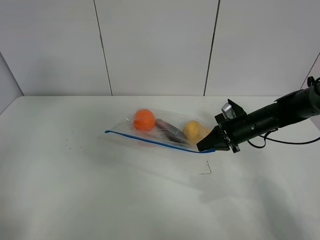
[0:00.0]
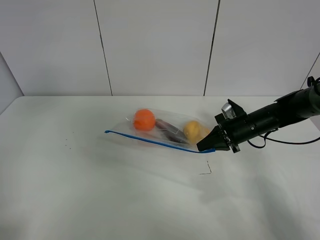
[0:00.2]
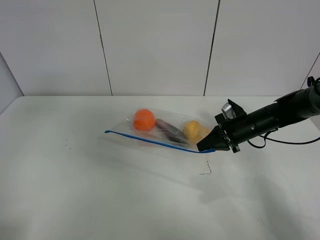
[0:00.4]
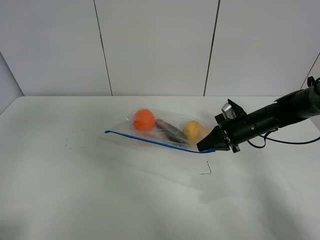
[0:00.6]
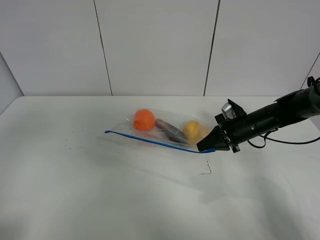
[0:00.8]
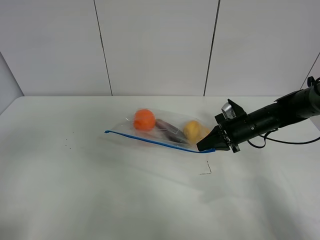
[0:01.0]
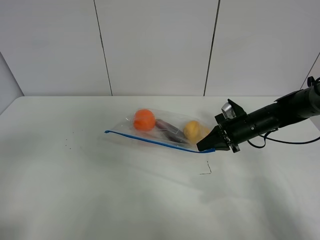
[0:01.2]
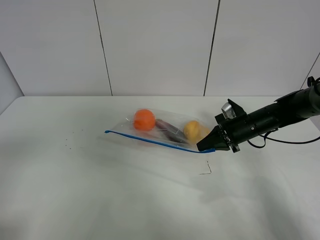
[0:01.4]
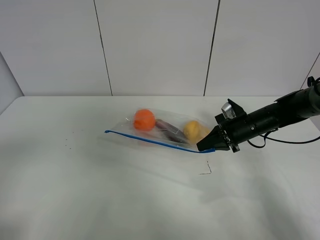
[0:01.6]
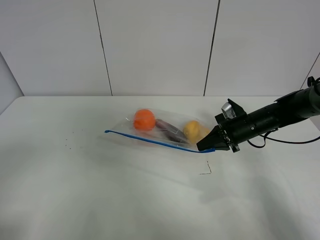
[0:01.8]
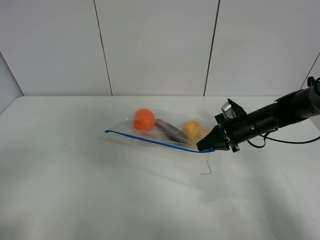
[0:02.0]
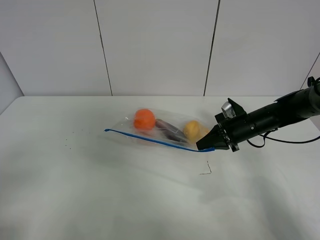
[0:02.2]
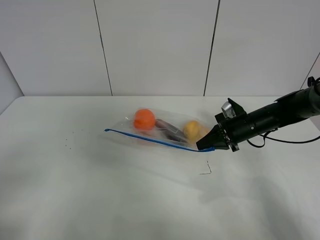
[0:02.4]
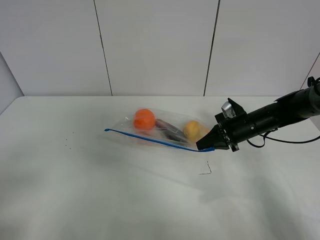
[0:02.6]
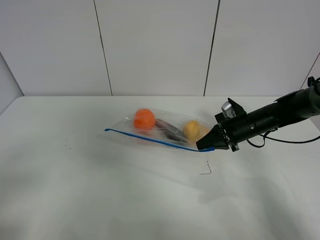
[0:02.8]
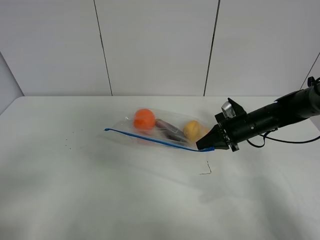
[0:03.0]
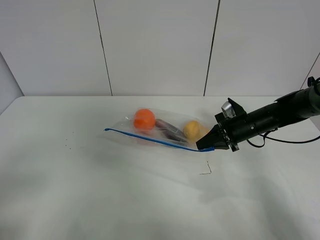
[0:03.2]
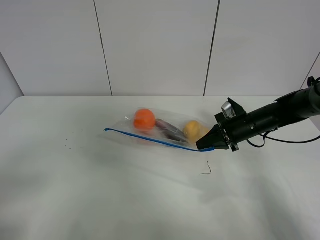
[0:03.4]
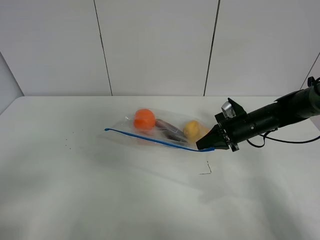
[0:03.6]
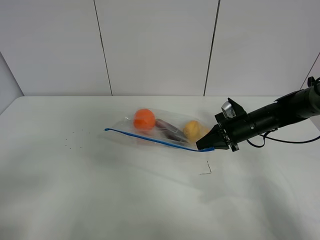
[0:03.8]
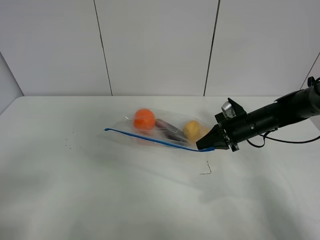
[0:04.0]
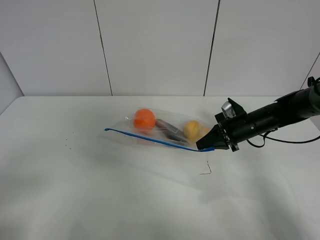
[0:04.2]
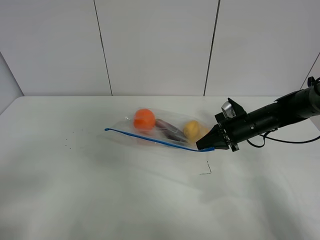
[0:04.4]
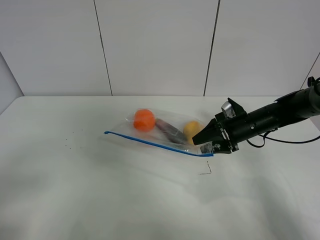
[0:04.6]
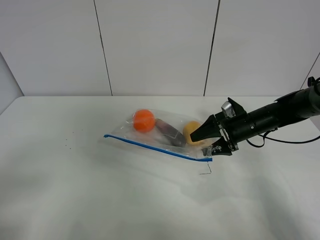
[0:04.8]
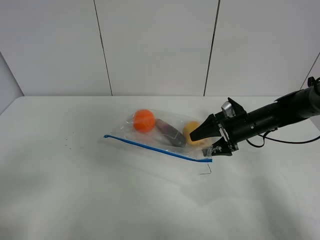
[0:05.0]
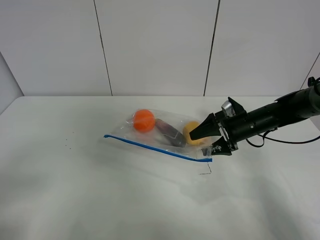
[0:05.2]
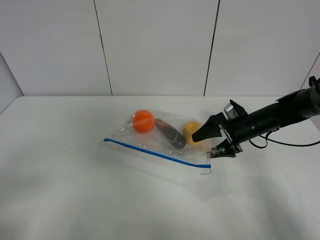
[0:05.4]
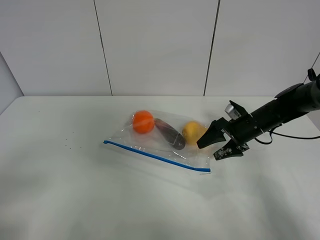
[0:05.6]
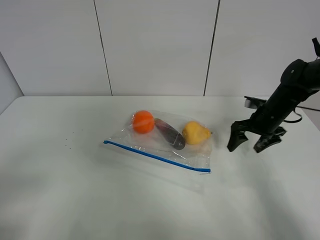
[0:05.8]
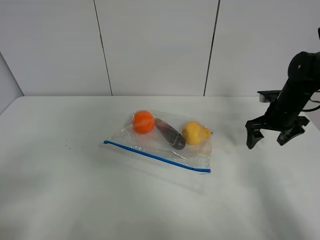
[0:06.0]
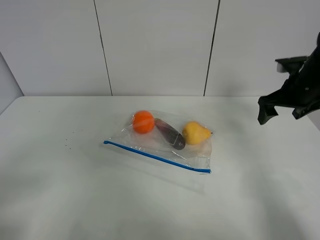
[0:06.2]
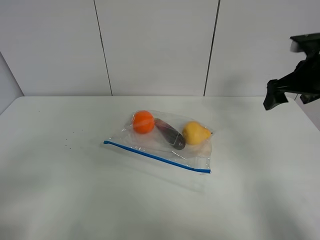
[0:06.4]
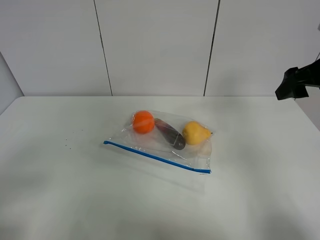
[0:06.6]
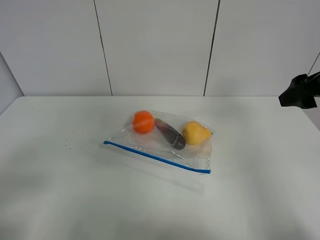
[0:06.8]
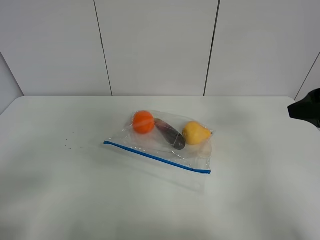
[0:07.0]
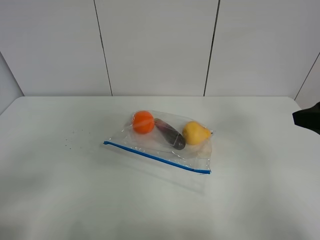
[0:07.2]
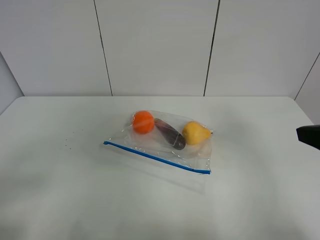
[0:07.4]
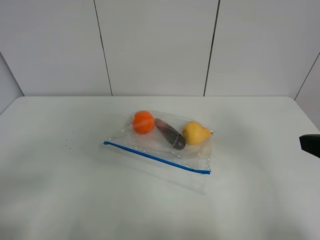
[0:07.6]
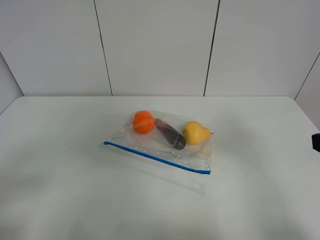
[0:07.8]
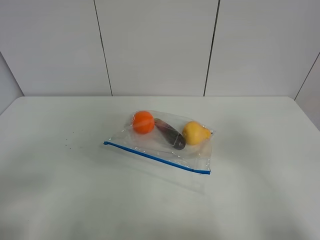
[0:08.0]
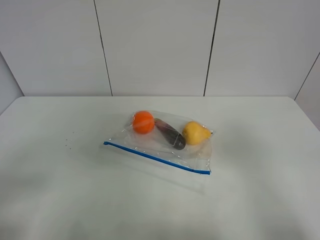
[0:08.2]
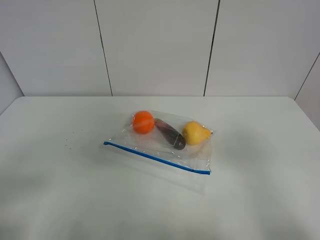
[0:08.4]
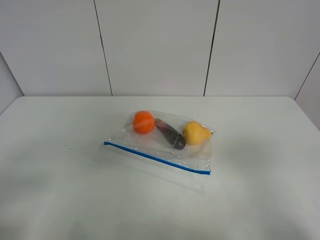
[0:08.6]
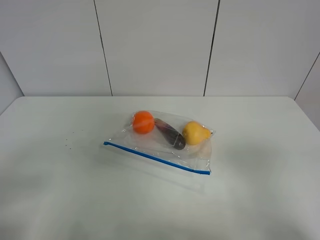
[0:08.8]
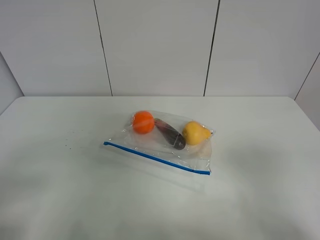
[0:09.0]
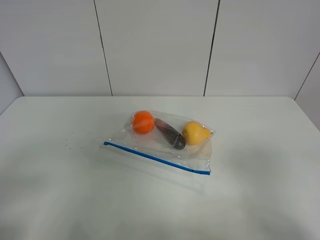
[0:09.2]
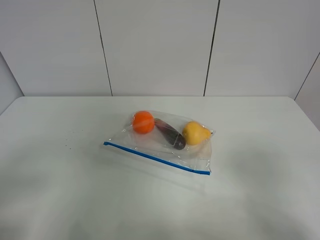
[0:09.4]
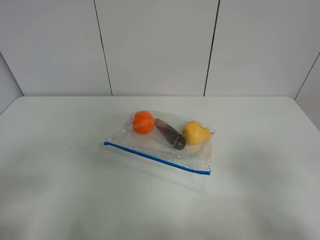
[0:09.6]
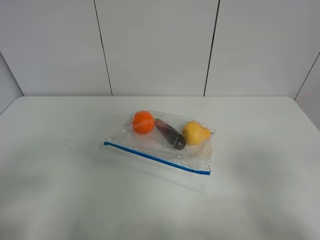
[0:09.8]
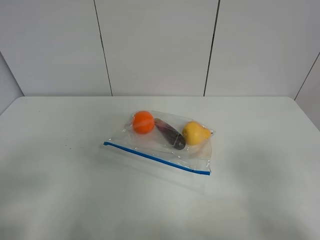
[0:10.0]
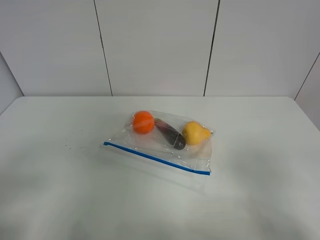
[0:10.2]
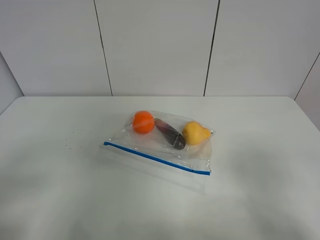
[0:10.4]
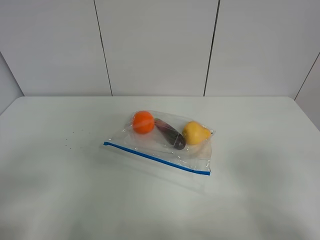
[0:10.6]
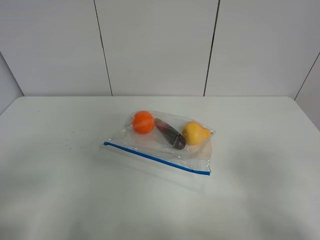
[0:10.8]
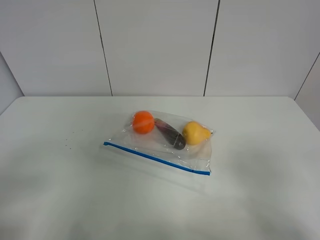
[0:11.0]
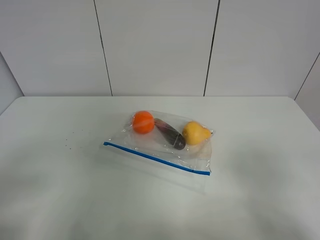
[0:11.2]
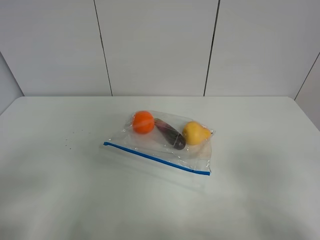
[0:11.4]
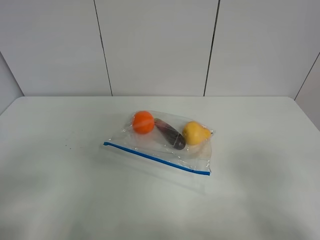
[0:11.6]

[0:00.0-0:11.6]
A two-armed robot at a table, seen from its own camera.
0:01.4 to 0:02.8: The left gripper travels downward by some 5 cm.
0:04.4 to 0:05.8: The right gripper travels to the right by some 5 cm, and opens up.
0:05.8 to 0:07.2: The right gripper moves backward and upward, approximately 30 cm.
0:07.2 to 0:08.8: The right gripper is displaced backward by some 15 cm.
0:10.2 to 0:11.6: Both grippers stay about where they are.

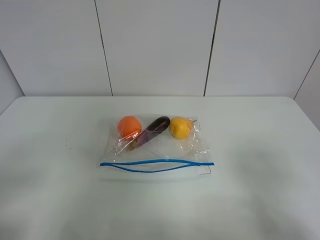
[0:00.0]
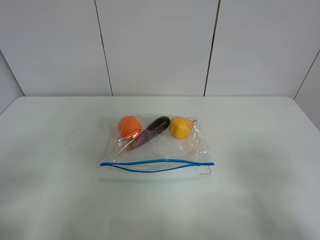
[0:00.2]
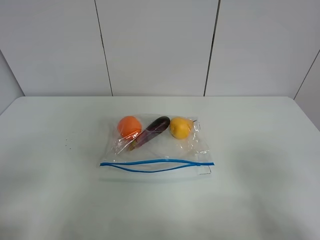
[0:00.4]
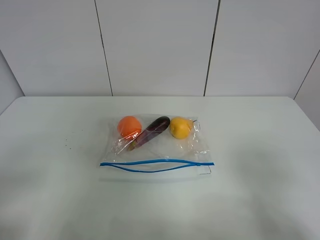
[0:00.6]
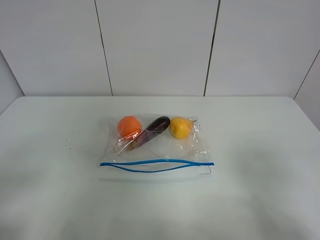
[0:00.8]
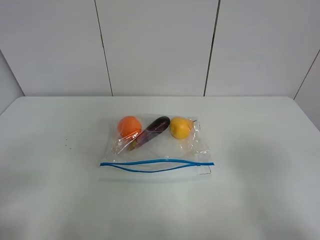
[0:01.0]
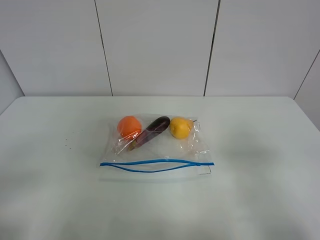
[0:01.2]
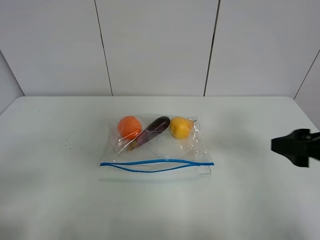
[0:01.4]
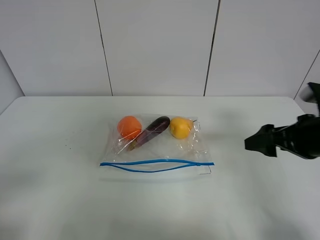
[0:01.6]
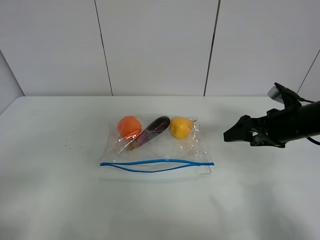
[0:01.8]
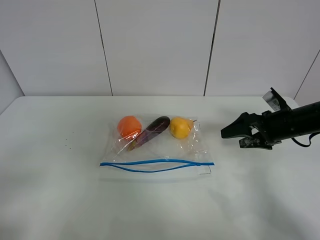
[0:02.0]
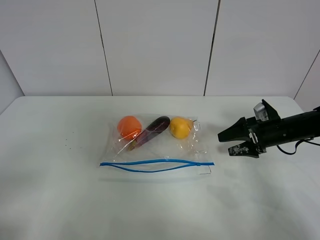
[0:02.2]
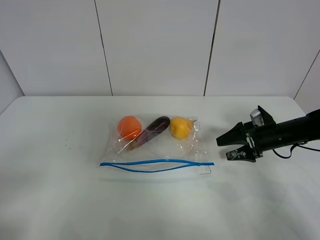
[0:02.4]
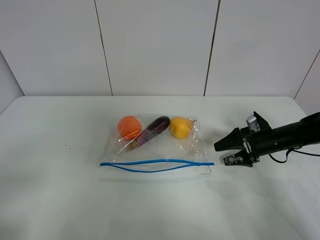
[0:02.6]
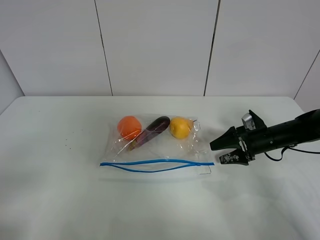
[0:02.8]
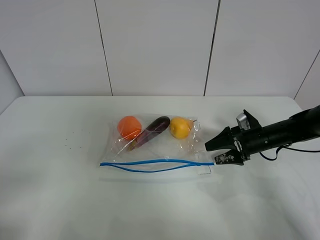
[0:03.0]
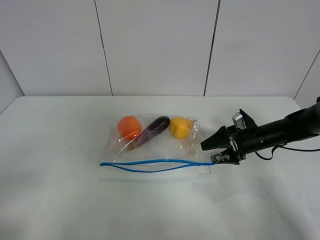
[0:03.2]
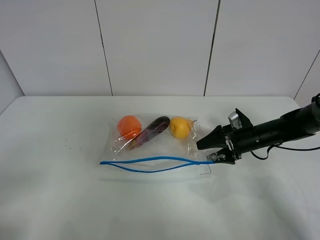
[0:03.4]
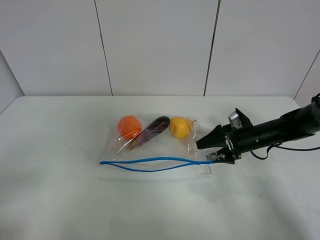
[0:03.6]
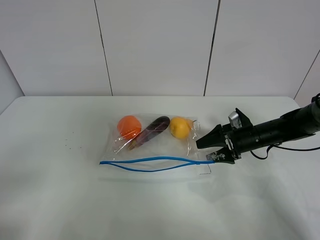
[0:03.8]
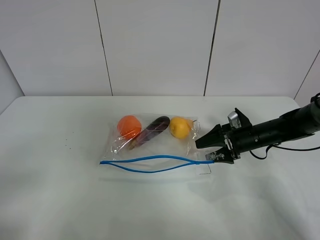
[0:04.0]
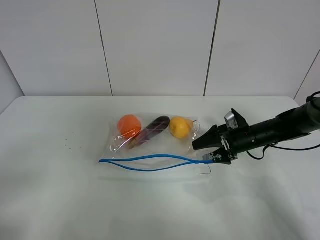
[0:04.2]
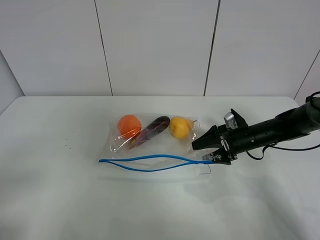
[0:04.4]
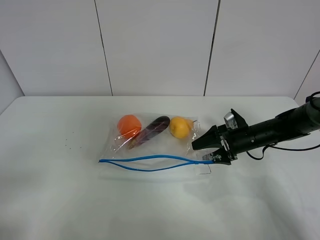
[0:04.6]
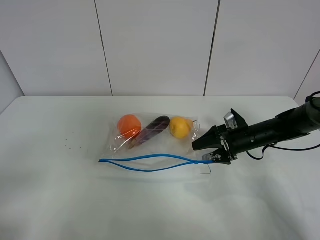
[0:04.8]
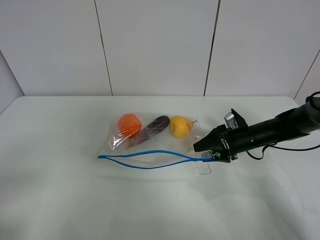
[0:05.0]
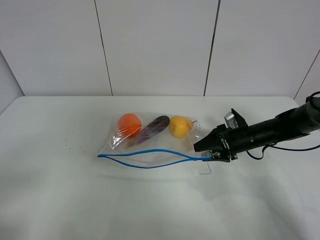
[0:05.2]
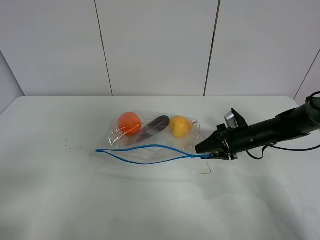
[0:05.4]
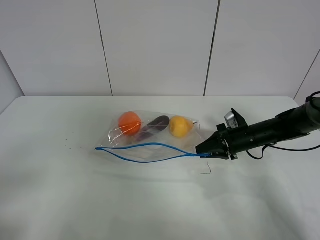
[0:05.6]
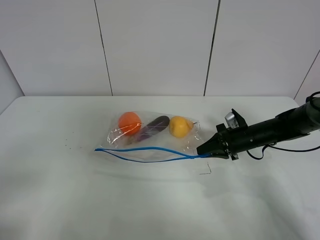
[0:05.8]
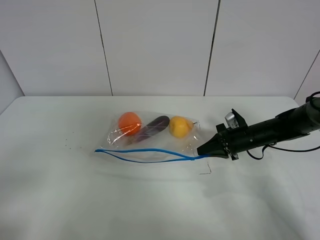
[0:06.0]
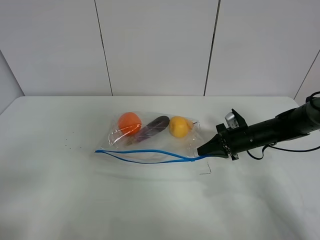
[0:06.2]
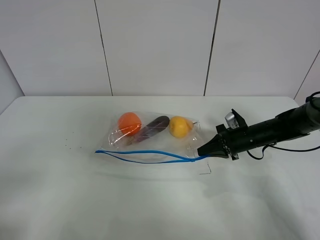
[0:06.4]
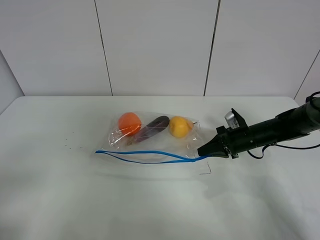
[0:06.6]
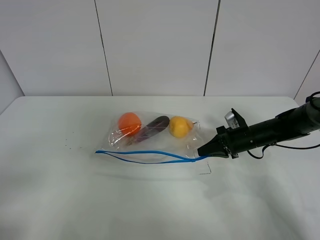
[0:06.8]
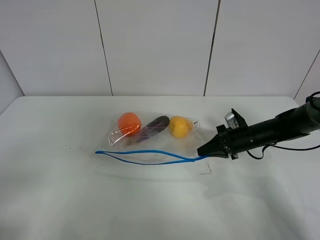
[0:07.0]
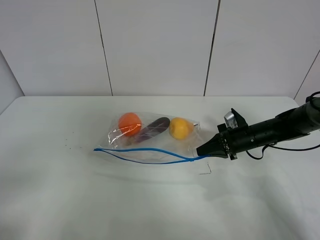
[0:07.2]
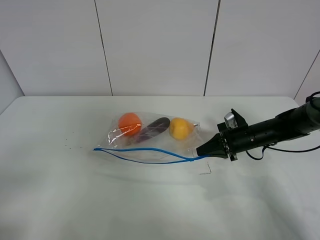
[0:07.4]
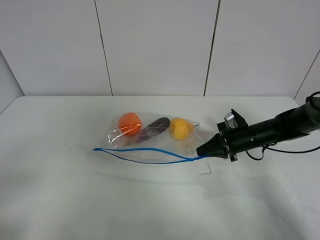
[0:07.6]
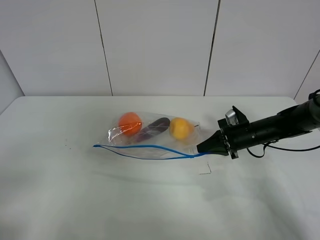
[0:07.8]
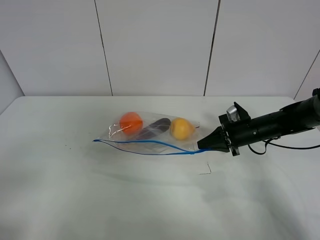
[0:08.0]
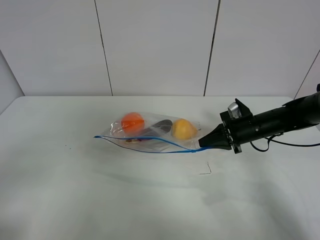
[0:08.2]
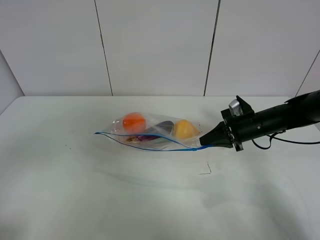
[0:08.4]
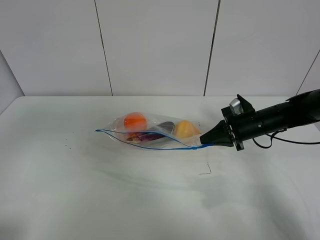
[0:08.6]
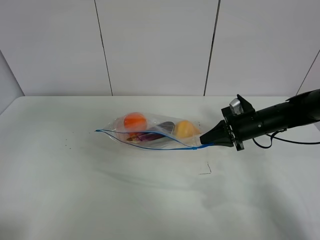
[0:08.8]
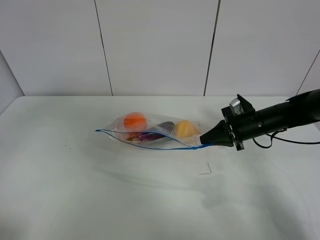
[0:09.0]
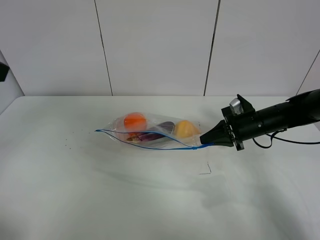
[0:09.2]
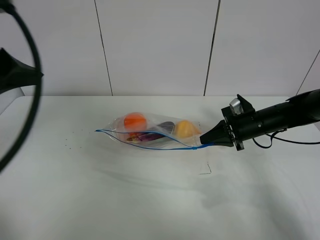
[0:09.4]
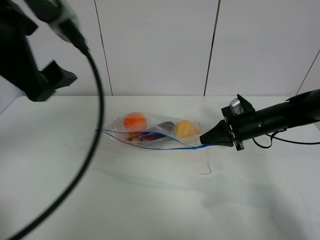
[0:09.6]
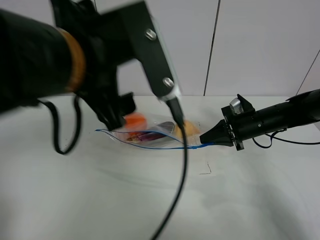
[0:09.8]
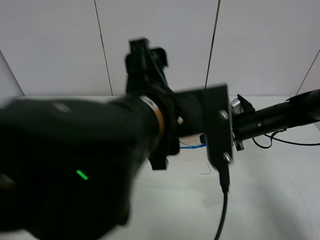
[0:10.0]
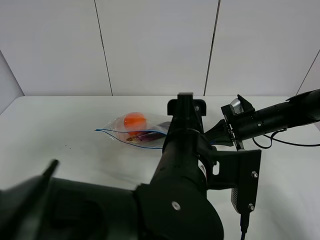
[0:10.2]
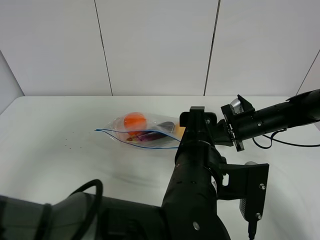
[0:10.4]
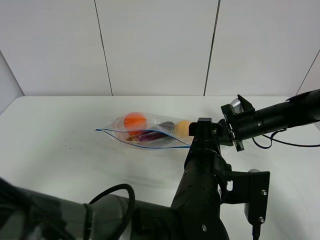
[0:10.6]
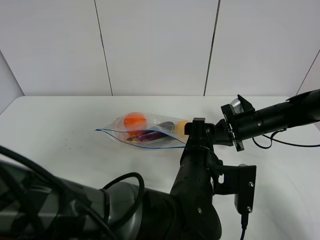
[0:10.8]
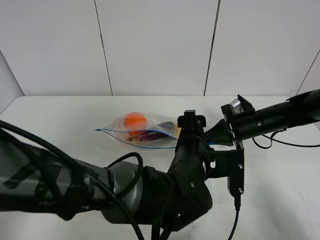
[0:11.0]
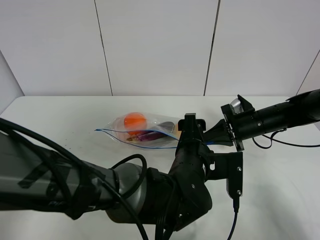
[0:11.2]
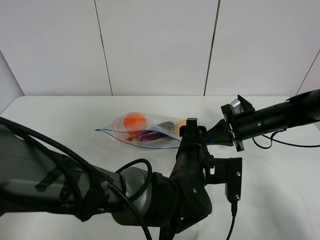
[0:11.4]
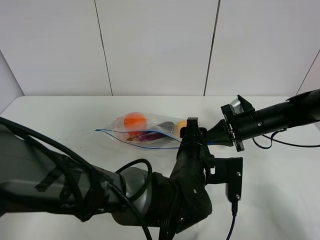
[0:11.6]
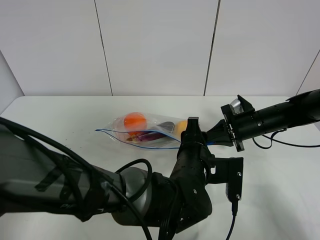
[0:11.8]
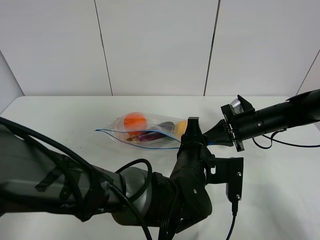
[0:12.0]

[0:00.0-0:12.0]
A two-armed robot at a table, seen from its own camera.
Step, 0:00.0 to 0:06.2: Grasp the fruit bag with right gripper.
Step, 0:06.4 to 0:08.6: Lift the fruit bag with your right gripper.
0:00.0 to 0:01.6: The right gripper is displaced forward by roughly 20 cm.
0:01.6 to 0:03.0: The right gripper is displaced downward and forward by roughly 20 cm.
0:03.0 to 0:04.4: The grippers move only a little.
0:04.4 to 0:06.0: The right gripper closes up.
0:06.0 to 0:07.6: Neither gripper changes place.
0:07.6 to 0:09.0: The left gripper moves upward and forward, some 20 cm.
0:09.0 to 0:10.4: The left gripper travels to the right and downward by roughly 40 cm.
0:10.4 to 0:12.0: The left gripper moves downward and forward, about 10 cm, and closes its fingers.
